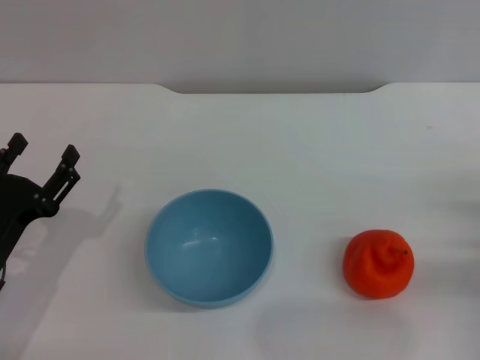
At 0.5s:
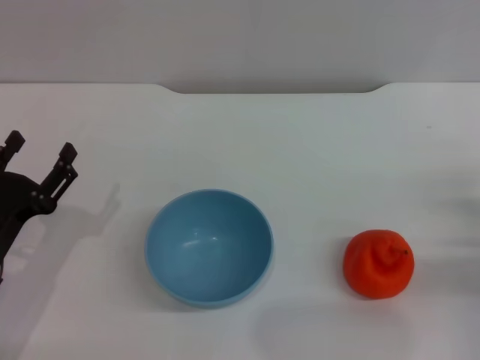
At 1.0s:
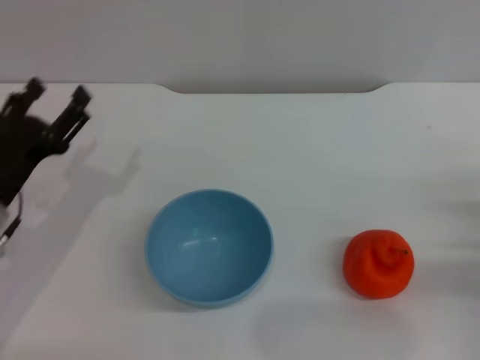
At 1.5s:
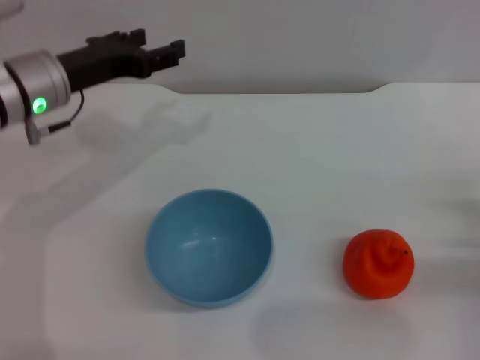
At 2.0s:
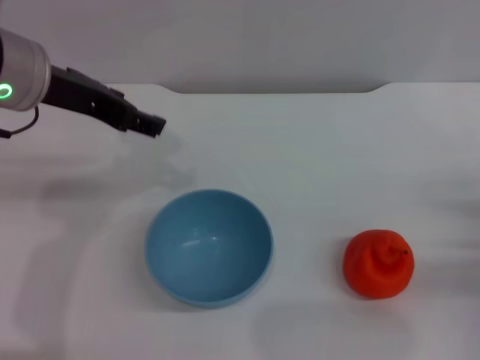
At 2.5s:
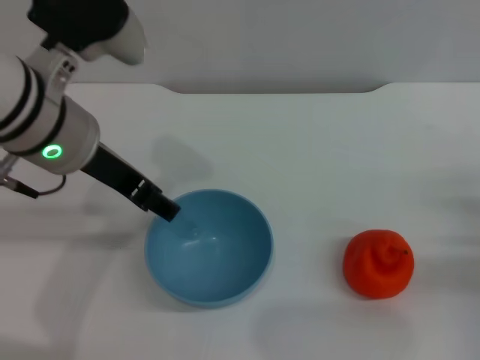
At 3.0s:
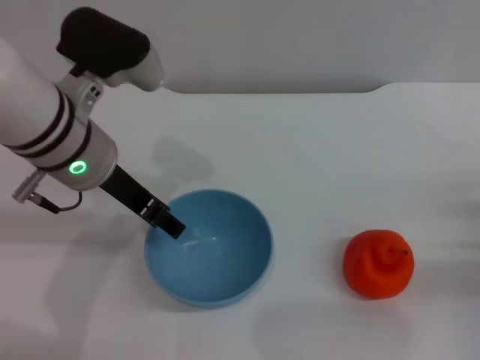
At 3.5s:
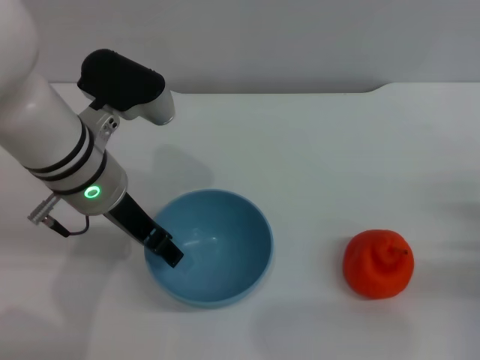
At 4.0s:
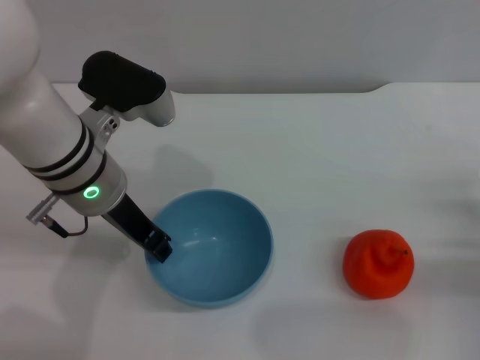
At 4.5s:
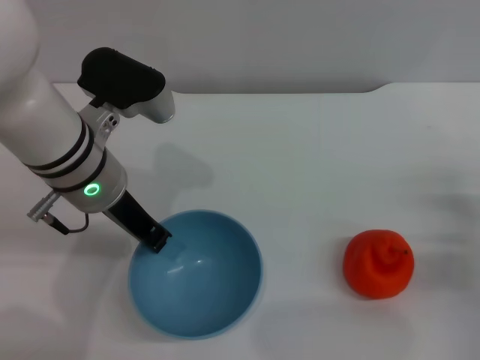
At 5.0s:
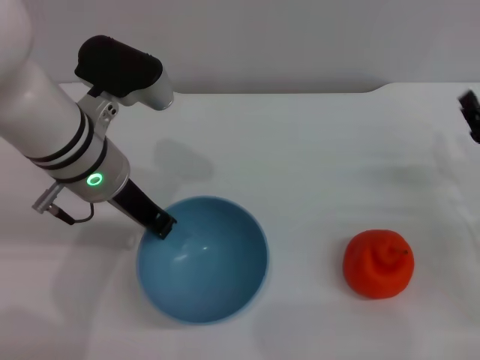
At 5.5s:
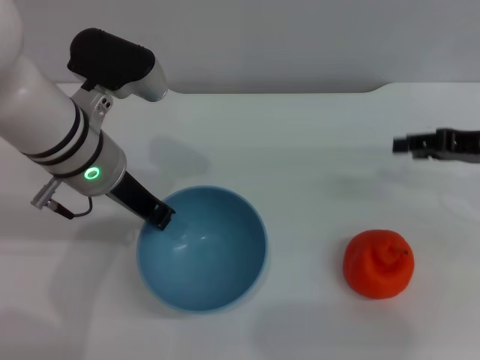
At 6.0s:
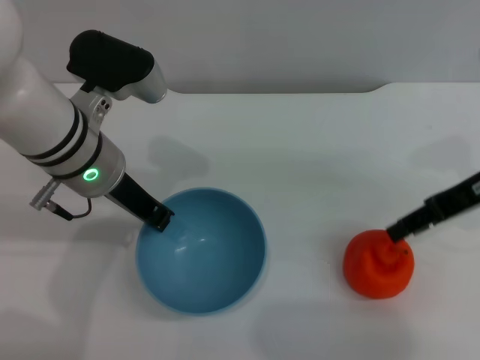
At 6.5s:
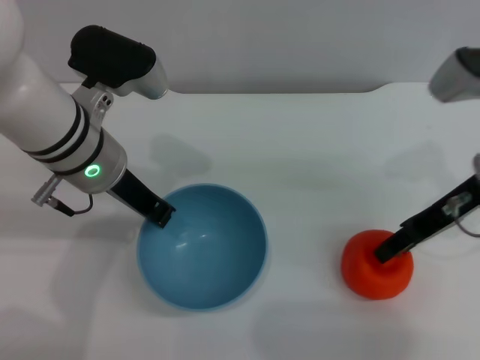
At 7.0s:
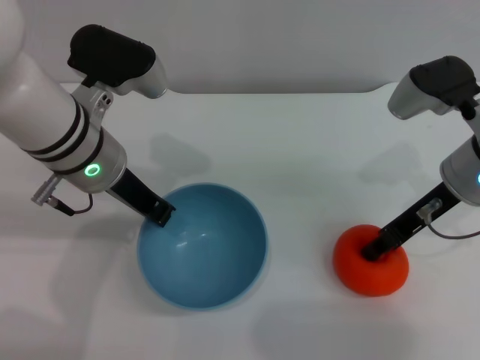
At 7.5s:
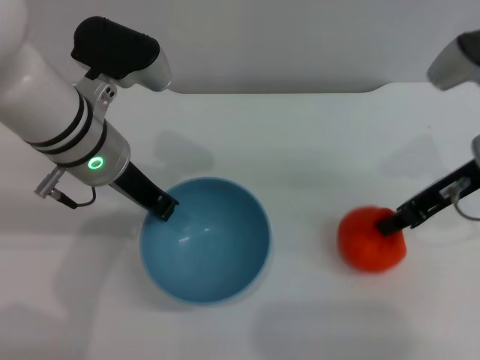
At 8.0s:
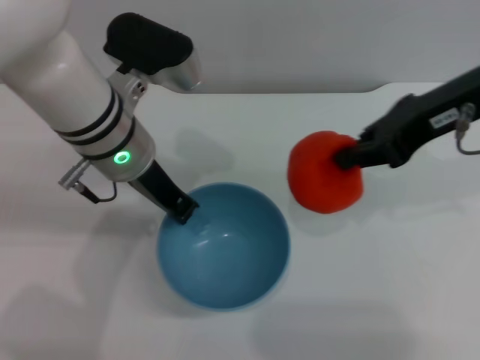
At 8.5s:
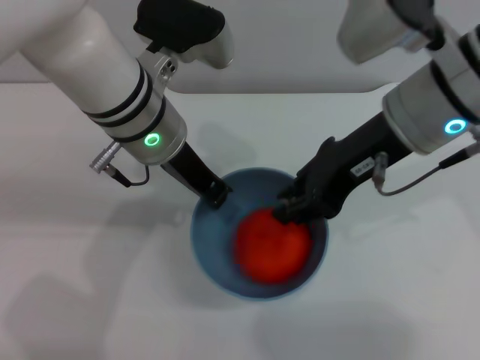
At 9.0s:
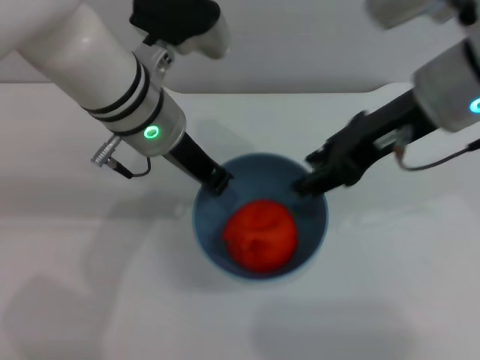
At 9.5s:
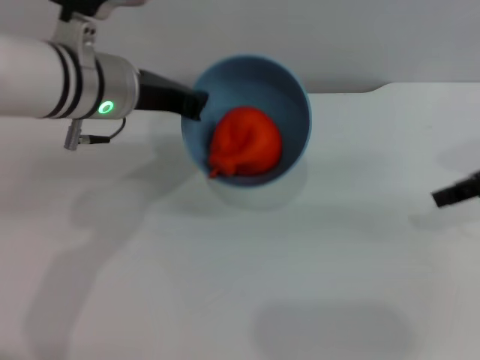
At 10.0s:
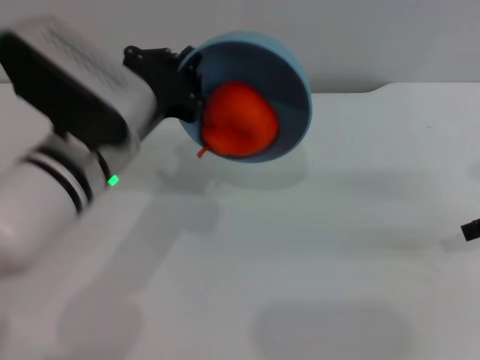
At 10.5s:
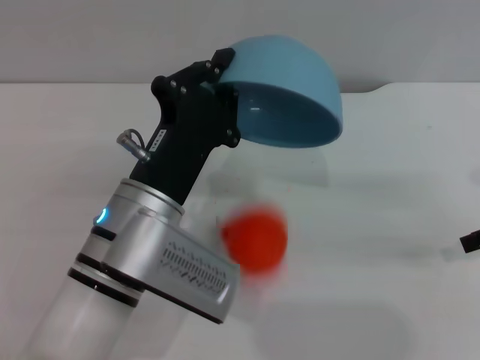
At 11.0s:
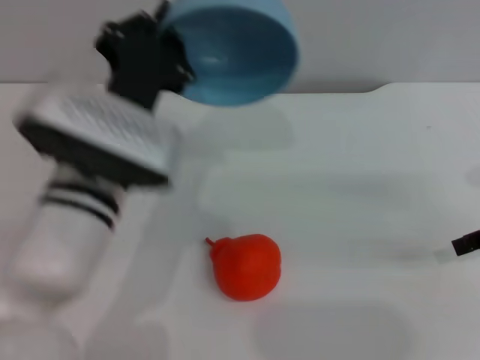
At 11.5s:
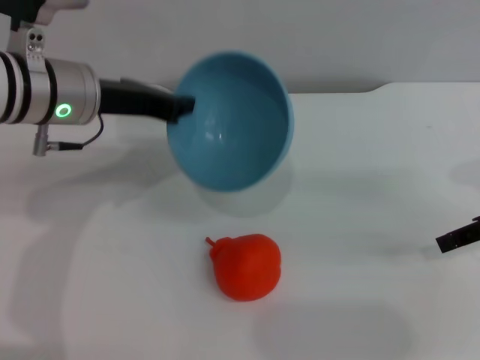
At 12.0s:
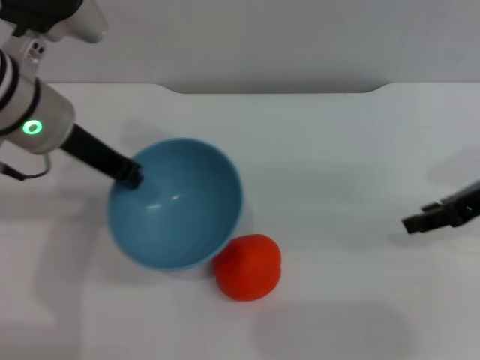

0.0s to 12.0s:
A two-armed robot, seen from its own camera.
Task of the whole recording: put the orange into the blue bowl and pour it out repeatedly.
Step, 0.0s to 5.5s: Pick up the bowl with the left gripper.
Step, 6.0s to 7.5s: Pick up the orange with the right gripper.
Step, 8.0s to 8.5s: Place the orange into the bowl.
Step, 9.0s to 10.5s: Pour the orange out of the bowl.
0.0s to 2.0s: The left gripper shifts roughly 25 cm upward and forward.
2.0s to 4.0s: The left gripper goes roughly 10 cm downward, and closes up.
4.0s to 6.0s: The right gripper moves upward and forward, about 20 cm. The left gripper closes up.
6.0s to 8.0s: The right gripper heads upward and to the left, covering some 10 cm, and closes up.
8.0s to 10.0s: The left gripper travels backward by roughly 5 cm. The right gripper travels to the right and downward by approximately 15 cm, and opens its fingers.
10.0s to 12.0s: The left gripper moves forward and to the left, some 10 cm.

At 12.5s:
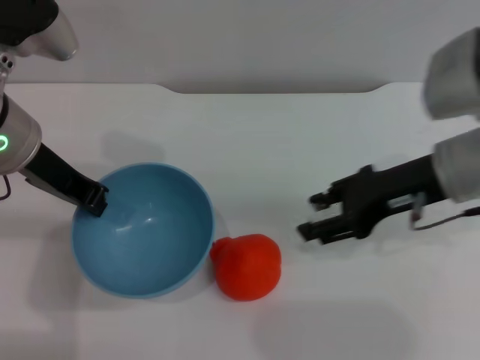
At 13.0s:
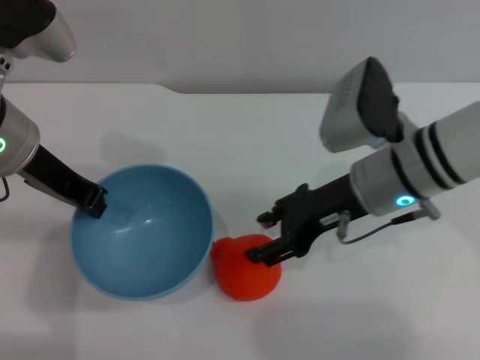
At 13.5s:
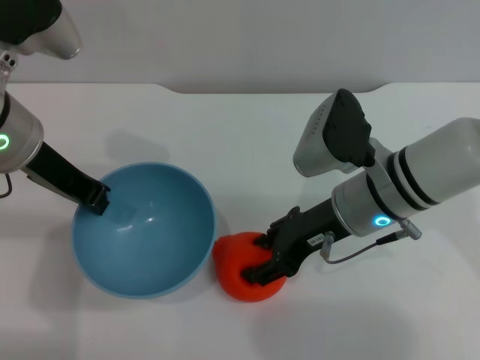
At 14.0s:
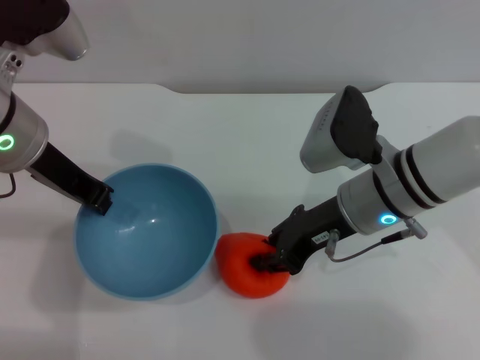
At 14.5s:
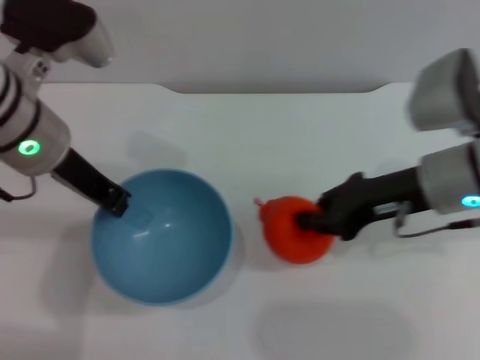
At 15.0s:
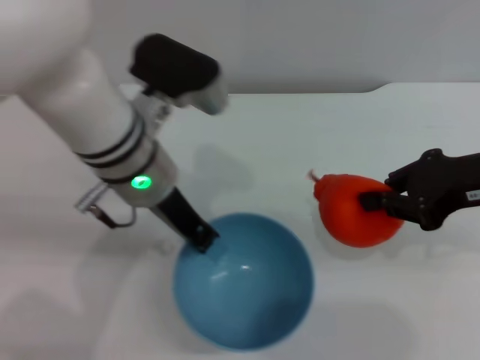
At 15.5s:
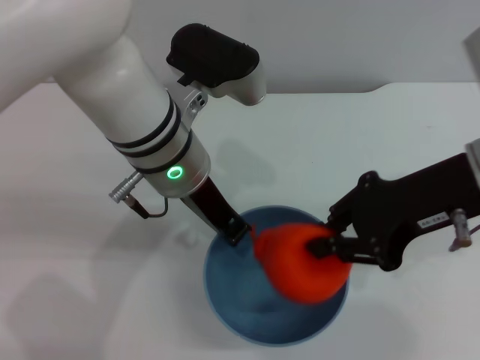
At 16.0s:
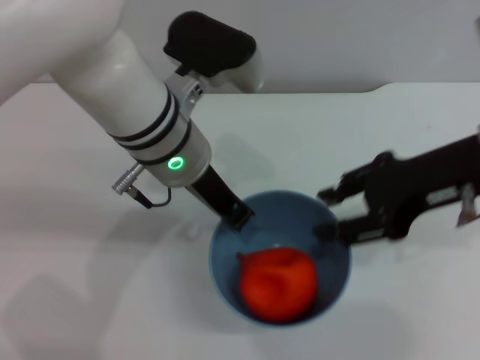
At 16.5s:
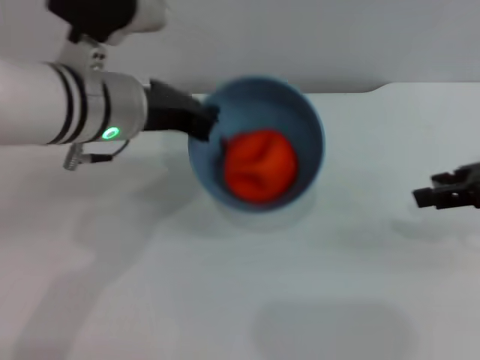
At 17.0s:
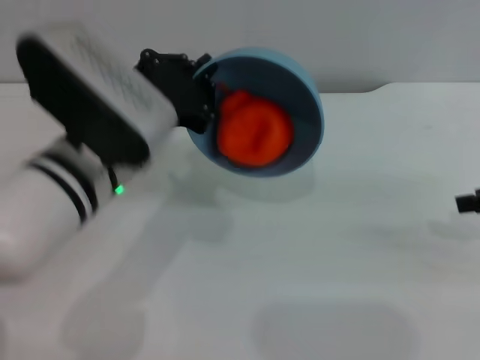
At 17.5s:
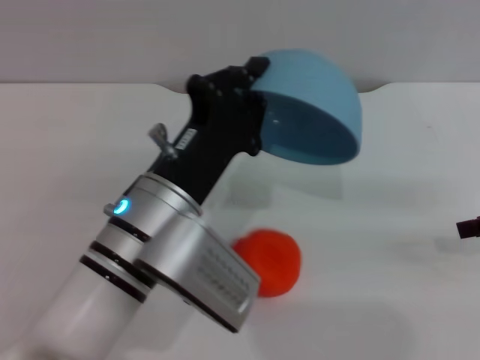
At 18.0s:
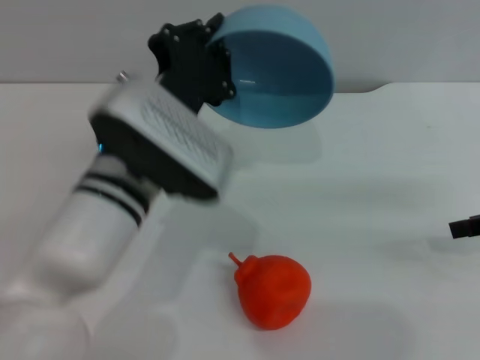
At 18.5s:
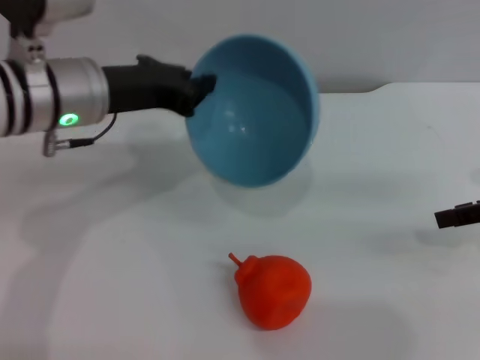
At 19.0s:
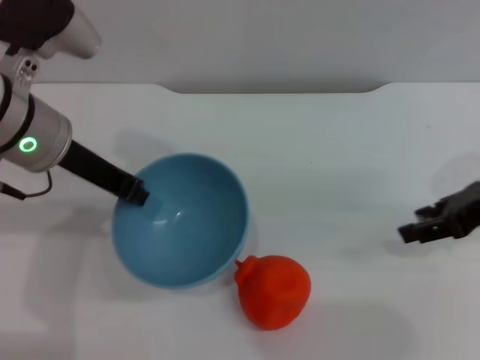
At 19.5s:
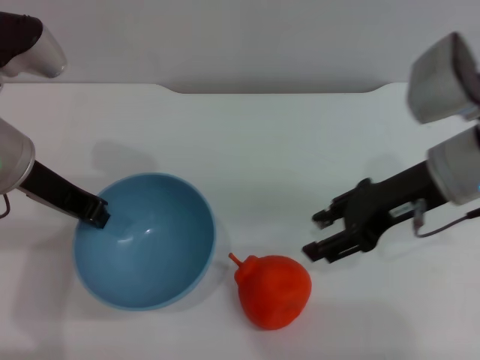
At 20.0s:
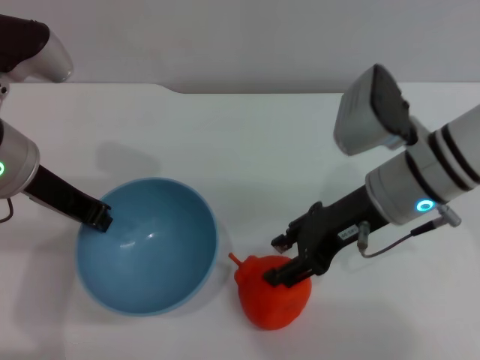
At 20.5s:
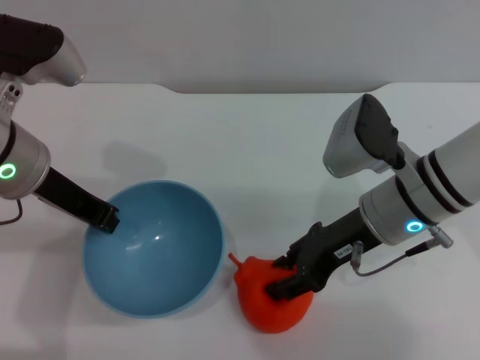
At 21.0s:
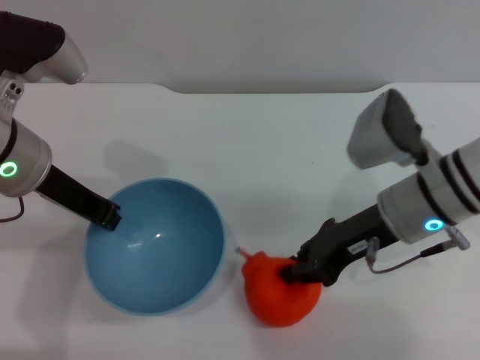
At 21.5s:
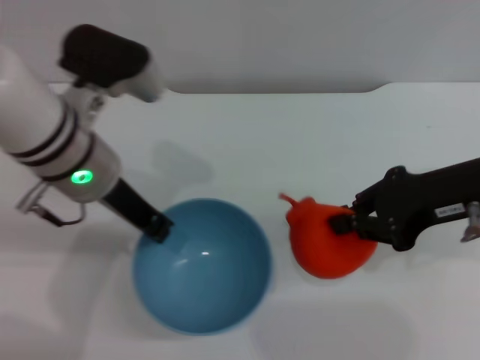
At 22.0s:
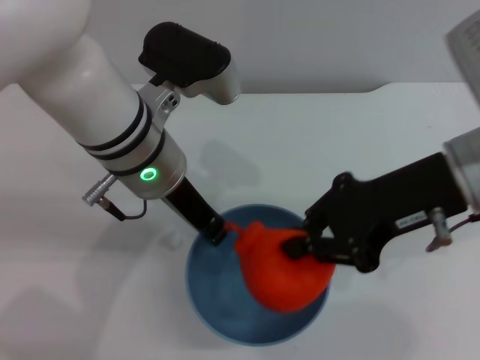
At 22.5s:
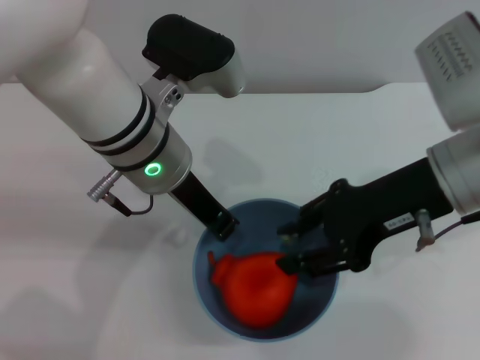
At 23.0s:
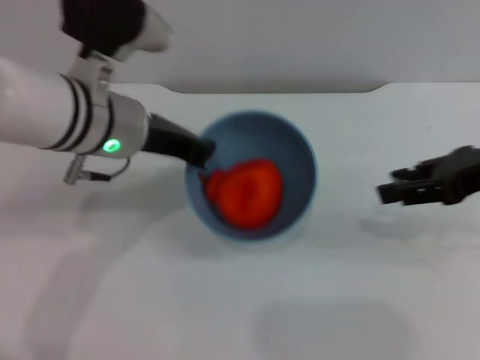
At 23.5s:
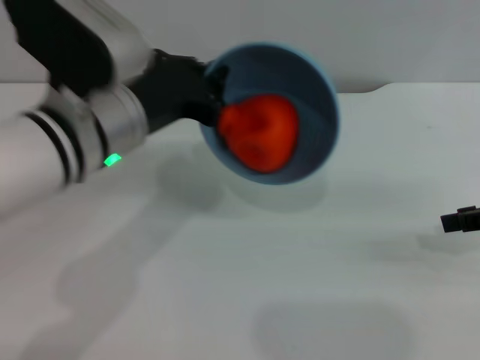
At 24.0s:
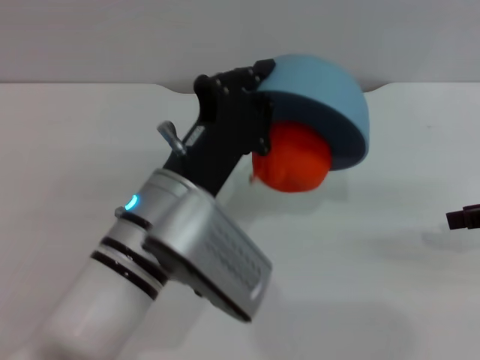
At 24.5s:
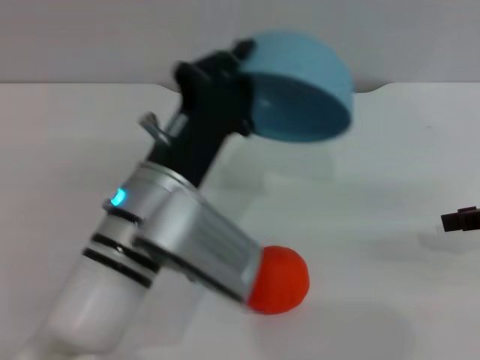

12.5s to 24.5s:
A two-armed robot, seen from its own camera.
Task of the whole recording: put the orange into the blue bowl and pour it out repeatedly.
Step, 14.5s to 15.5s: Place the orange into the bowl.
Step, 16.0s to 17.5s: Pour the orange out of the bowl.
Step, 18.0s to 21.0s: Pick up the orange with the right gripper.
Step, 21.5s to 22.0s: Place the orange into the bowl.
12.5s to 14.5s: The right gripper reaches approximately 10 cm to the left, then returns, and closes.
14.5s to 16.5s: The right gripper swings left and right, about 10 cm each way, with 2 reversals, and opens.
16.5s to 18.5s: The left gripper goes backward and returns, about 10 cm each way.
18.5s to 20.5s: The right gripper goes roughly 20 cm to the left.
20.5s to 22.5s: The left gripper shifts some 10 cm to the right; the right gripper moves upward, approximately 10 cm, and closes.
22.5s to 24.5s: The left gripper moves backward and downward, some 10 cm. The right gripper goes some 15 cm to the right.

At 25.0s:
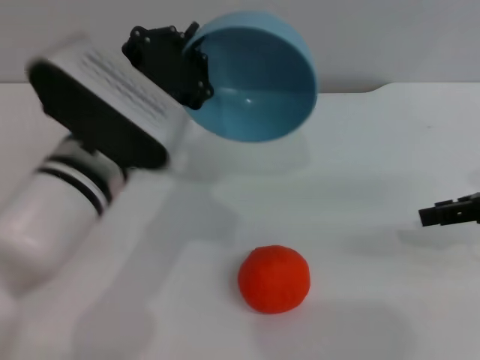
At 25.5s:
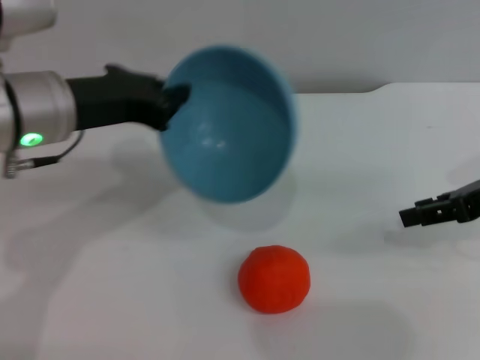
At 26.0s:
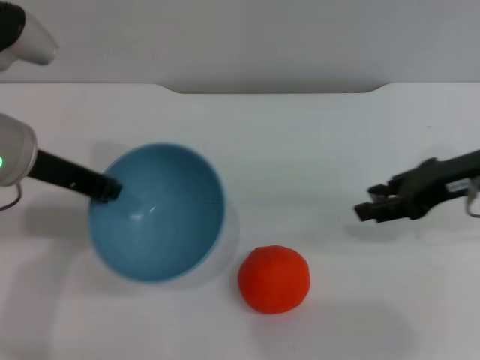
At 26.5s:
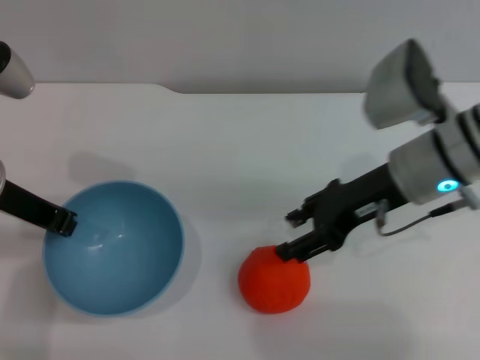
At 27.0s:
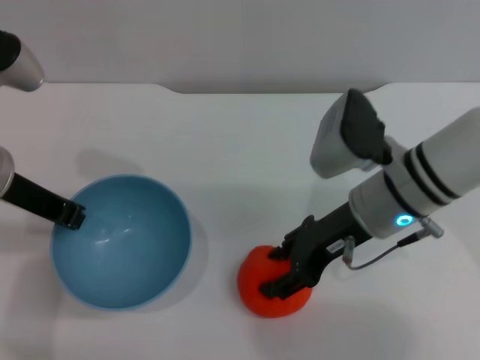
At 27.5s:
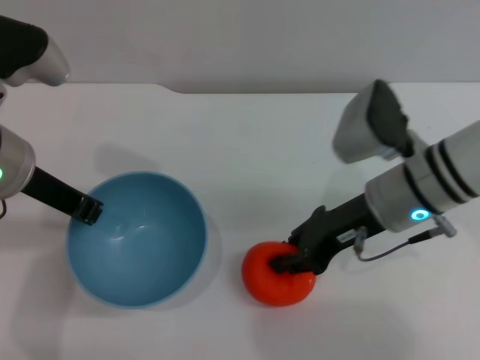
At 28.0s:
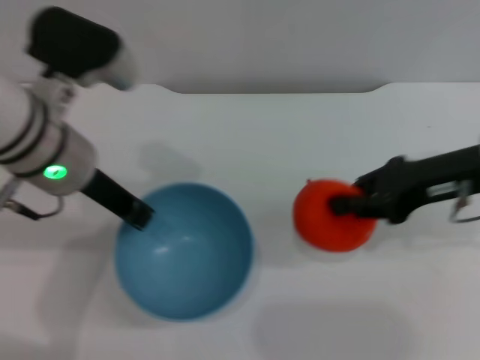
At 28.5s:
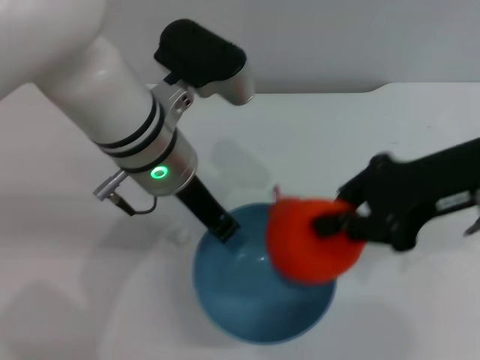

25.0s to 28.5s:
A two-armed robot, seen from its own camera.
Task of the whole recording: put the orange into the blue bowl and pour it out repeatedly.
Step, 25.0s to 27.5s: Pick up the orange with the right gripper.
25.0s to 27.0s: The right gripper travels to the left by approximately 20 cm; the left gripper is displaced to the left by about 10 cm.
27.0s to 28.5s: The right gripper travels upward and to the right by about 15 cm, and closes up. The left gripper is displaced to the right by about 15 cm.
